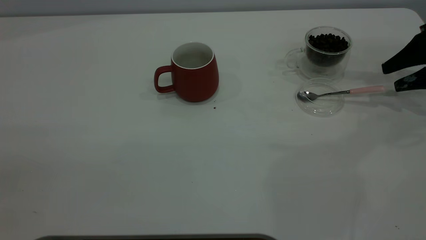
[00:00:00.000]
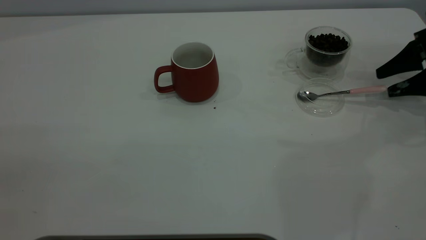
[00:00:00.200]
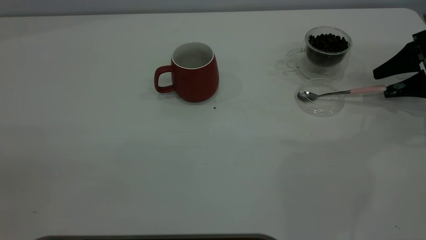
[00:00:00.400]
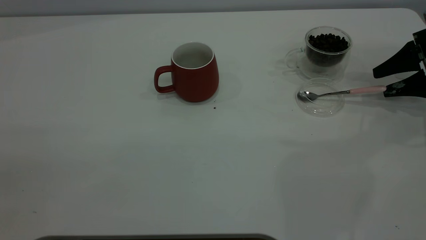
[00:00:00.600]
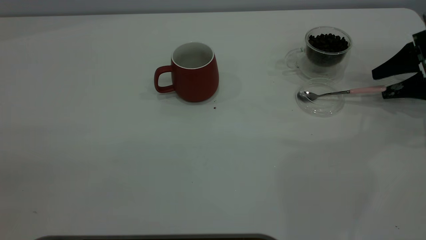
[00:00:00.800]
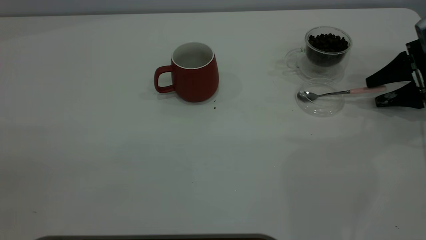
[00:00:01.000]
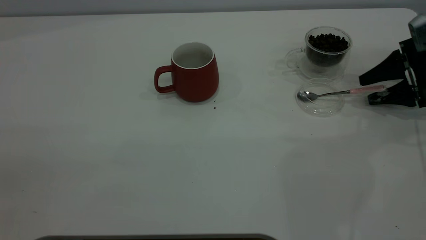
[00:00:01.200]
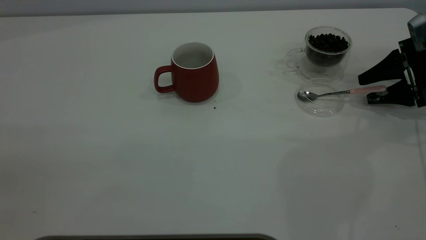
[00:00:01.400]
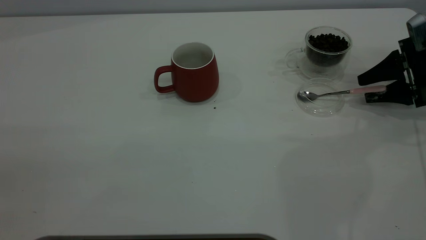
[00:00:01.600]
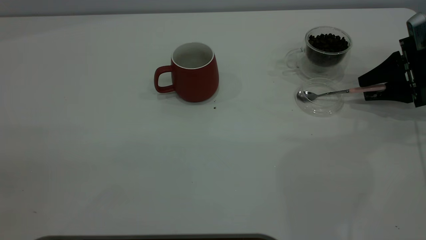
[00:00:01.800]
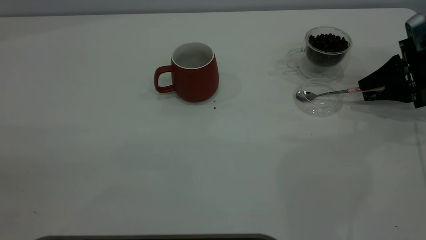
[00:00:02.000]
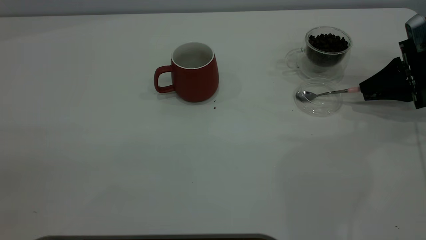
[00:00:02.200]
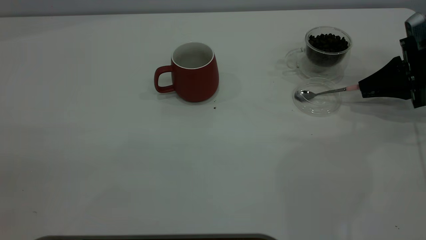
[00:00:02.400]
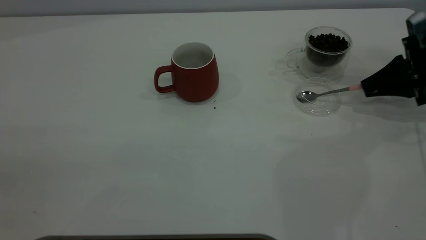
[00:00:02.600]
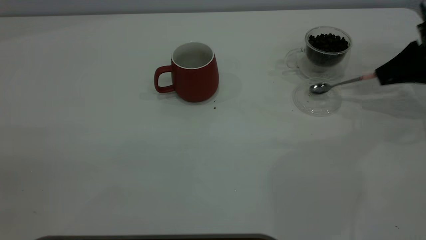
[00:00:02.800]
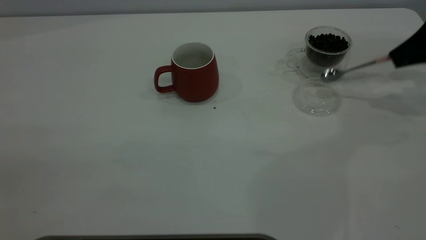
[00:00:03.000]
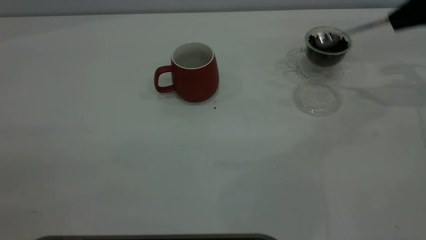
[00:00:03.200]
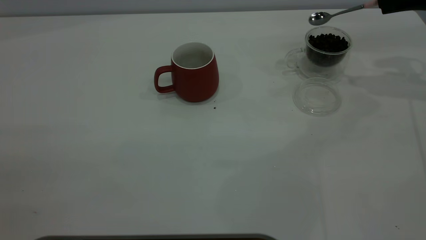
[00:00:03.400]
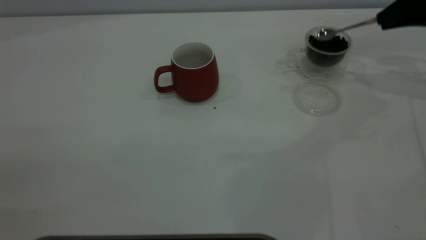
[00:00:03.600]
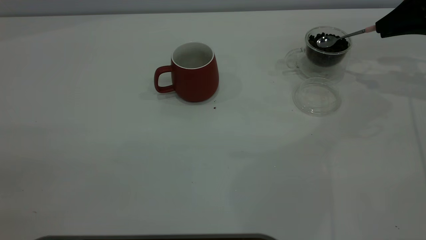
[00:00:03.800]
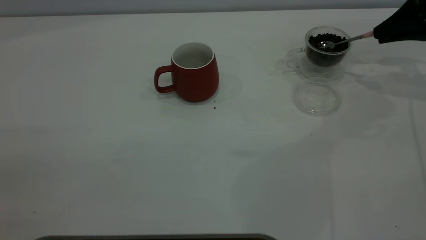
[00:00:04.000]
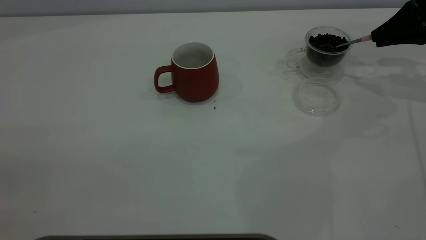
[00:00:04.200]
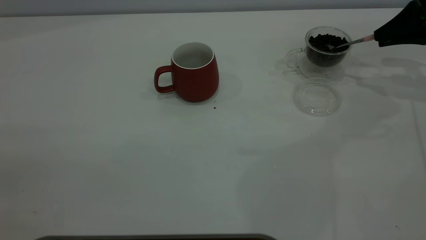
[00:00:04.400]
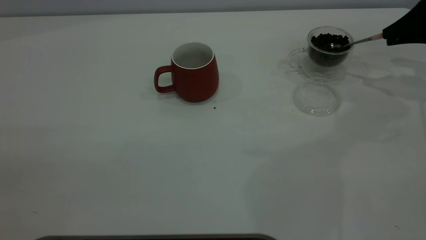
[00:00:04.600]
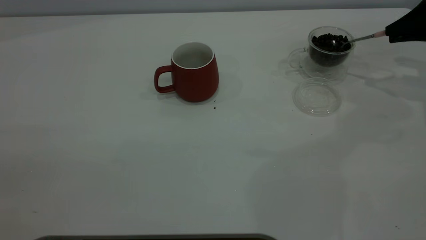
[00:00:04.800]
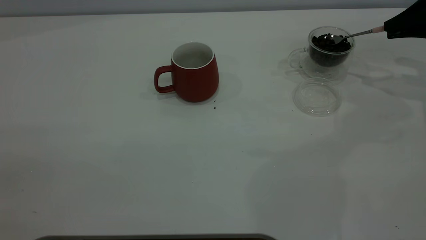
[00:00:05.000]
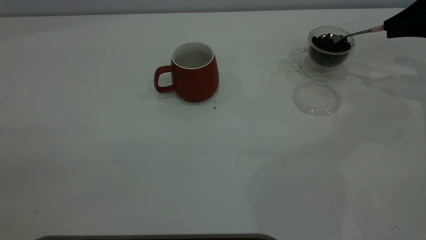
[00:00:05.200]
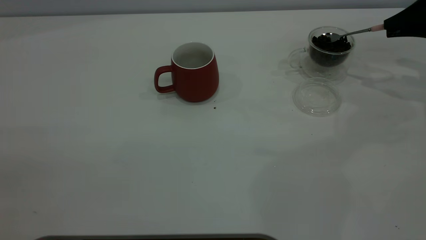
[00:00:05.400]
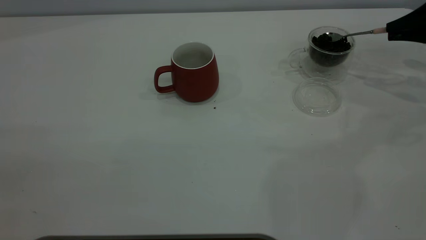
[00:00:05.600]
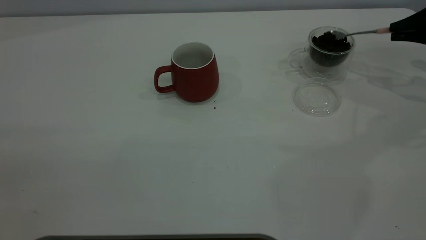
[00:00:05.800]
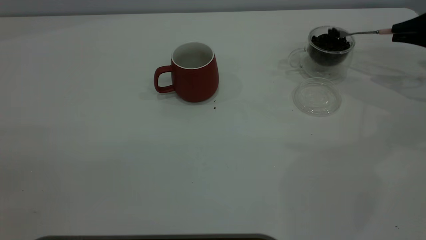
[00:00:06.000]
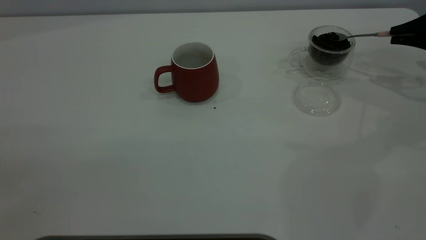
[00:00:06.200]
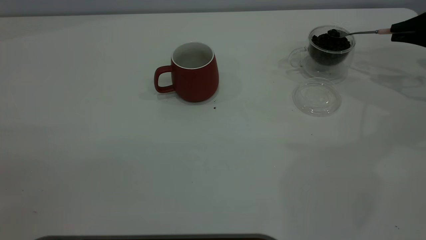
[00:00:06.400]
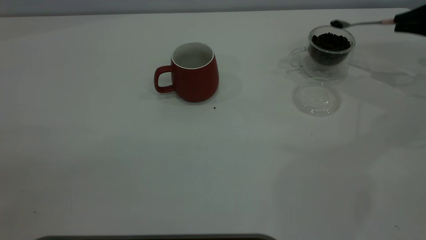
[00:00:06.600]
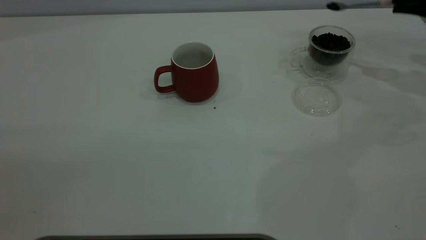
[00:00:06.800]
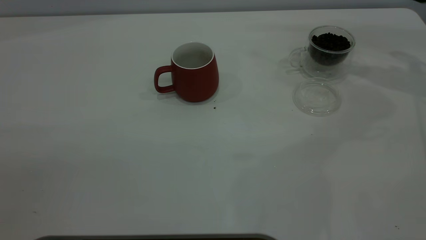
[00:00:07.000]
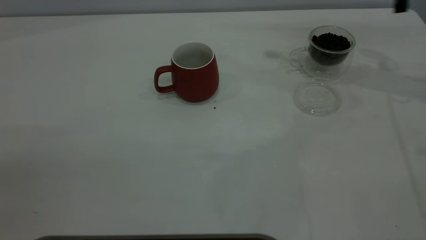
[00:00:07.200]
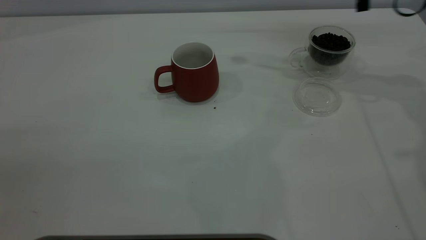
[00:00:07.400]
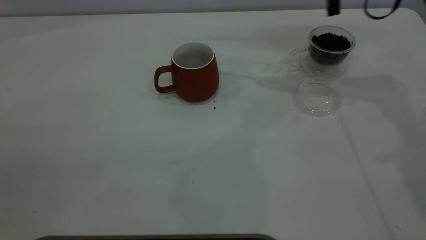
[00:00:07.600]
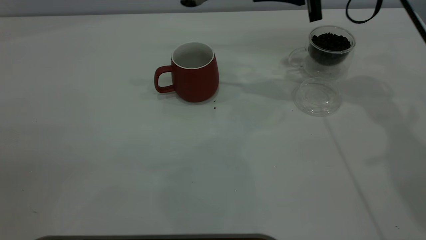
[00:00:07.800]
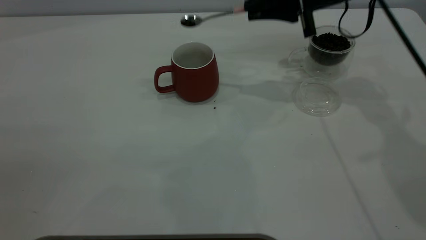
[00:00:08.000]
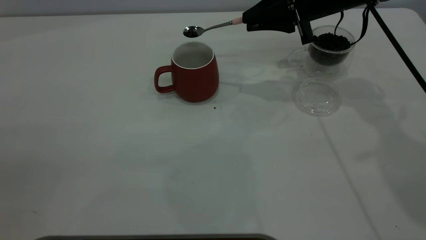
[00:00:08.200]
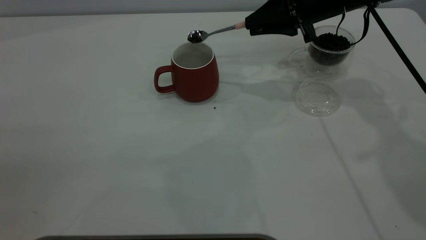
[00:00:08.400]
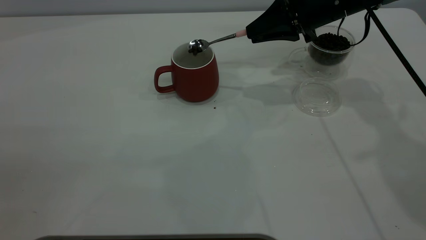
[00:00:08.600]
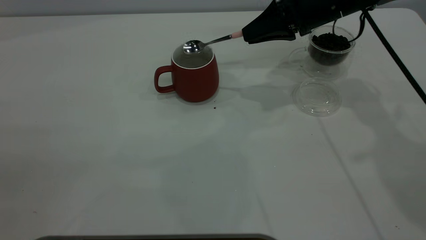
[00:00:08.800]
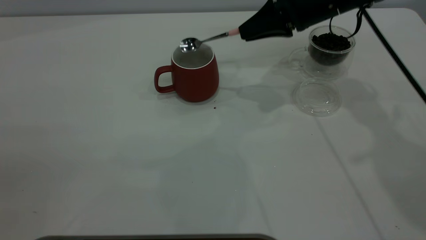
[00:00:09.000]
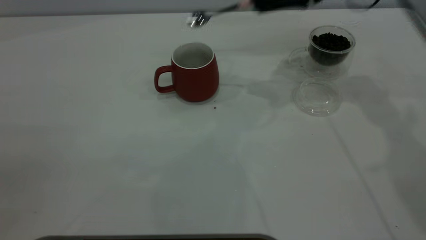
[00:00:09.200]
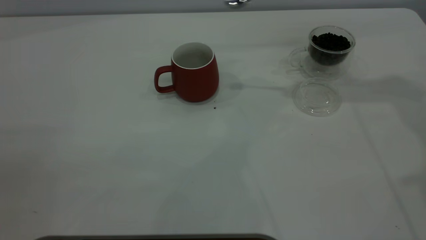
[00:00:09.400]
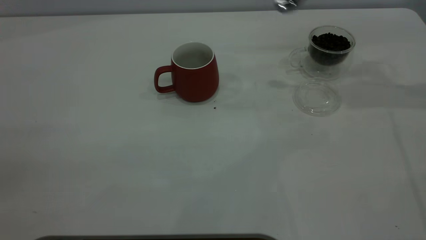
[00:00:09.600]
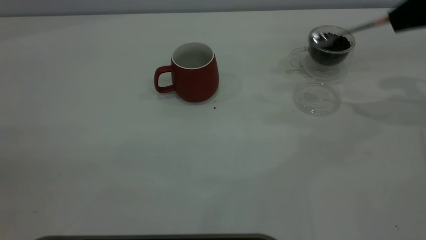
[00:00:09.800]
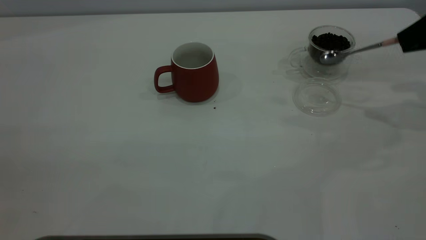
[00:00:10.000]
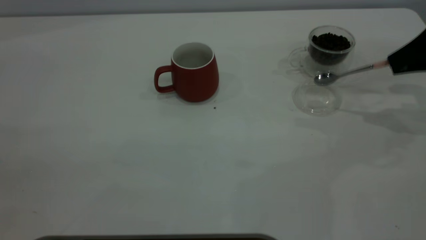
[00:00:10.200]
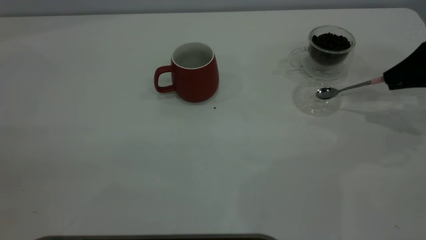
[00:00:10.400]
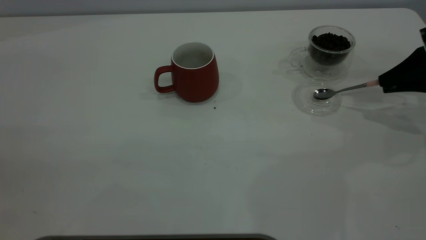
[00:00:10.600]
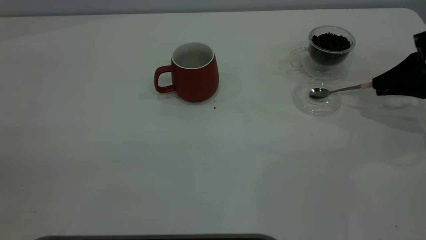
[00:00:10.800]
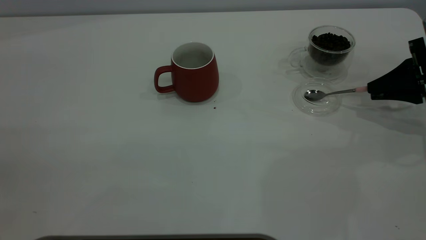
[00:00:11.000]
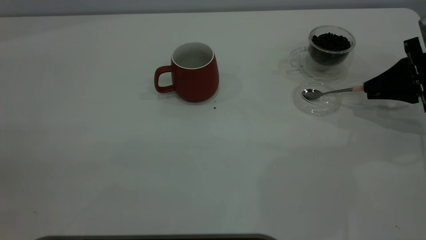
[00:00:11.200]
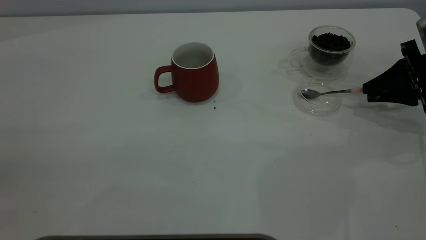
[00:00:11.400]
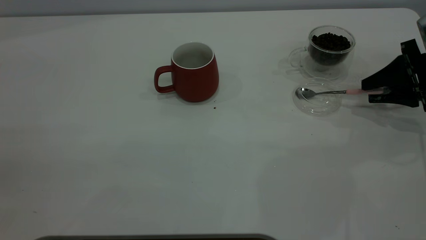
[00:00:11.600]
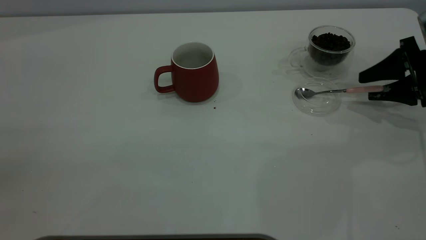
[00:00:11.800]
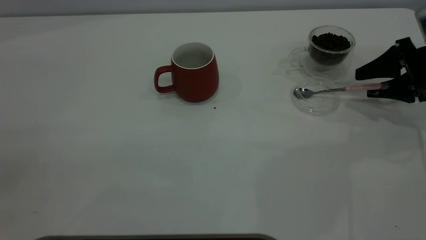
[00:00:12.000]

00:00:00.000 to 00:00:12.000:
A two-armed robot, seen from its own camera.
Task of the whole recording: the left gripper place the red cup in the center of the table, the right gripper take the pink spoon from the cup lid and scoop out the coffee beans from the coffee cup and put them into the red cup, the right gripper put the spoon back into the cup lid.
Step, 00:00:00.000 to 00:00:02.800: Pick up the spoon.
Step, 00:00:03.000 to 00:00:09.000: Scoop a spoonful of beans into the cup.
00:00:00.000 to 00:00:01.600: There are only small adjustments of the grippers.
00:00:01.600 to 00:00:03.000: The right gripper goes about 10 cm upward, and closes up.
00:00:04.400 to 00:00:06.000: The right gripper ends up some 5 cm from where it was.
00:00:06.000 to 00:00:07.600: The right gripper is displaced to the left and upward by approximately 25 cm.
00:00:07.600 to 00:00:09.000: The right gripper ends up some 5 cm from where it was.
00:00:09.000 to 00:00:10.400: The right gripper shifts roughly 20 cm to the right.
00:00:10.400 to 00:00:12.000: The right gripper opens up.

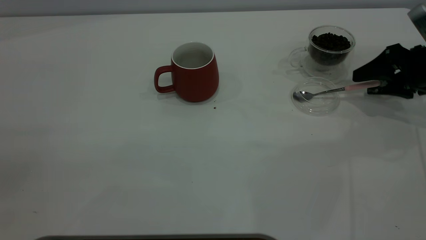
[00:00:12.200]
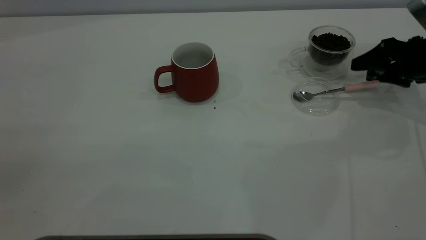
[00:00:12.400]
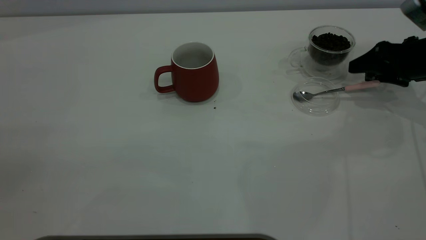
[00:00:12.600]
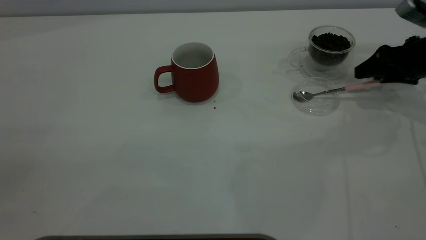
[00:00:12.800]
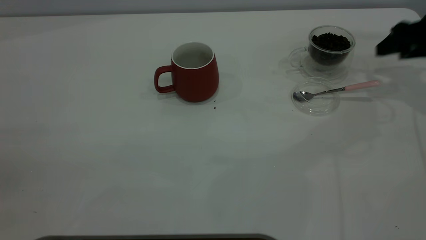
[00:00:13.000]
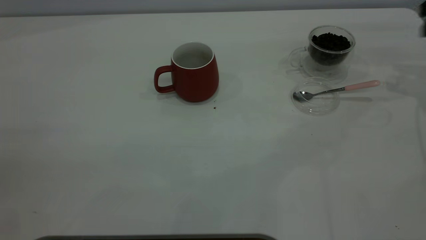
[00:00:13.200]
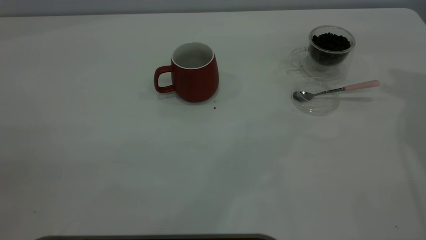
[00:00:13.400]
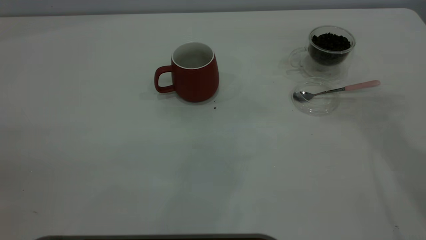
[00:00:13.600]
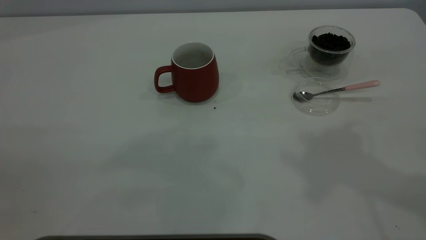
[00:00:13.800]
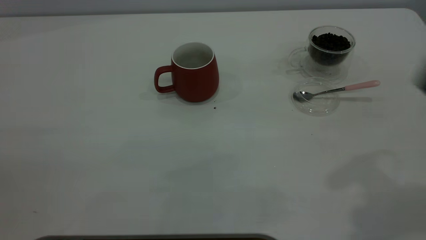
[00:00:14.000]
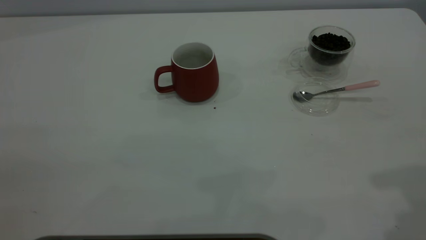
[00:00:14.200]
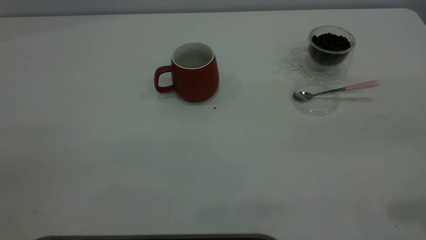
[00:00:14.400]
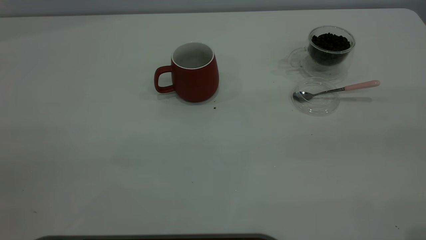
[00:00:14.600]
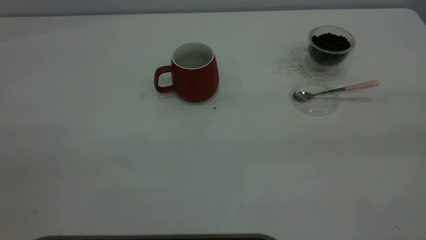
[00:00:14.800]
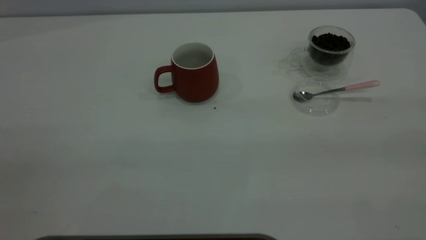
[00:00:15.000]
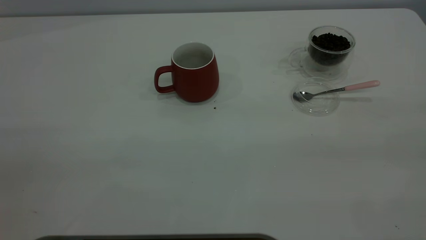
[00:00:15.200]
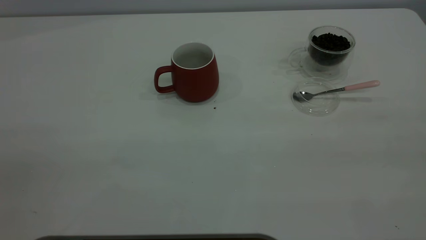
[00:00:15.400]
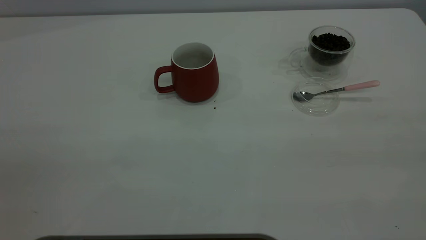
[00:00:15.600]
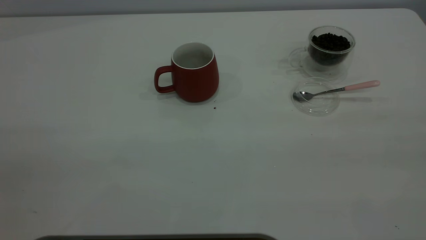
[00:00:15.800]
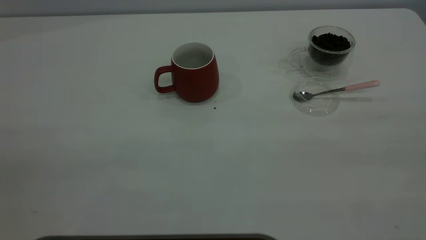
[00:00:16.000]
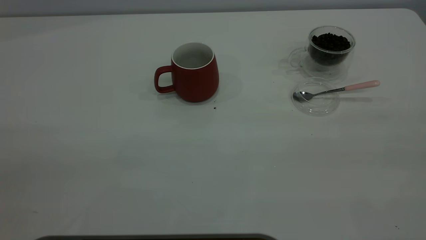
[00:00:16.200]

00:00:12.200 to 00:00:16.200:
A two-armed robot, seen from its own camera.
Task of the whole recording: the left gripper place the red cup in the center of the table, the right gripper take the pink spoon from the cup lid and scoop out the coffee beans from the coffee cup and put them into the red cup, the right gripper put the spoon back into the cup lid.
00:00:12.200 to 00:00:13.600: The right gripper goes approximately 30 cm upward and to the left.
